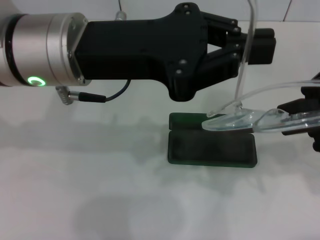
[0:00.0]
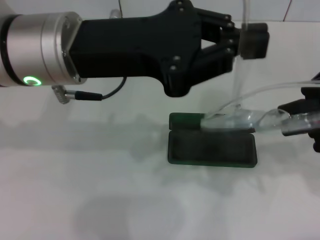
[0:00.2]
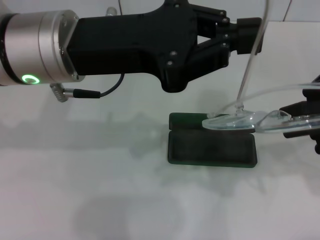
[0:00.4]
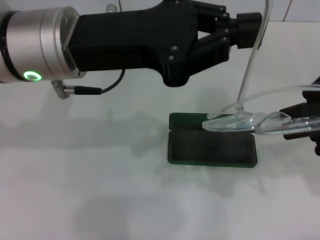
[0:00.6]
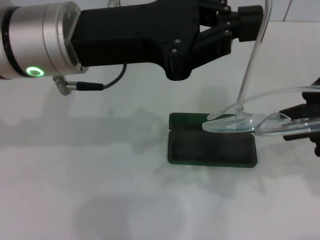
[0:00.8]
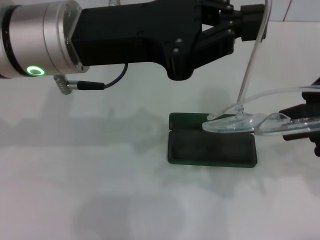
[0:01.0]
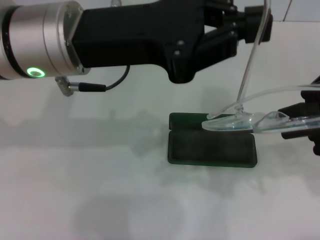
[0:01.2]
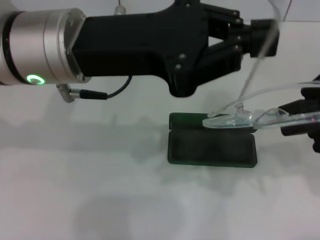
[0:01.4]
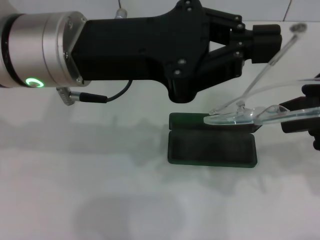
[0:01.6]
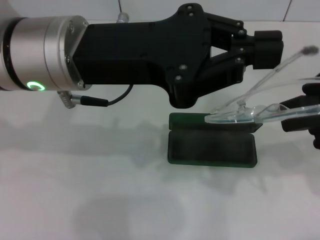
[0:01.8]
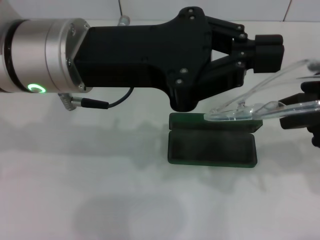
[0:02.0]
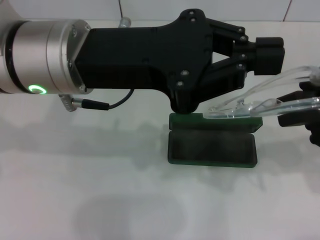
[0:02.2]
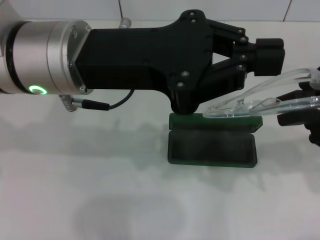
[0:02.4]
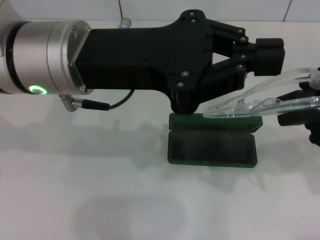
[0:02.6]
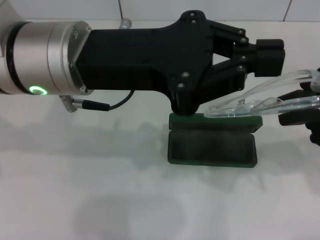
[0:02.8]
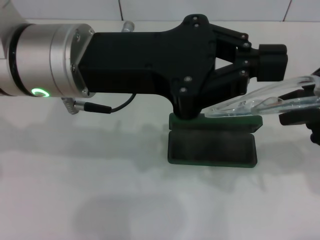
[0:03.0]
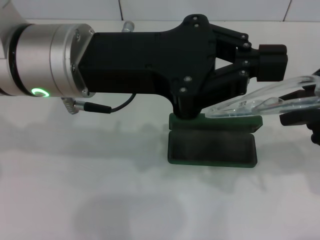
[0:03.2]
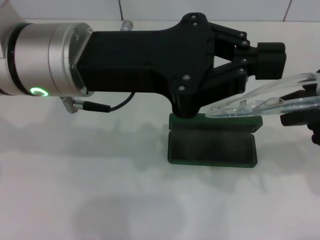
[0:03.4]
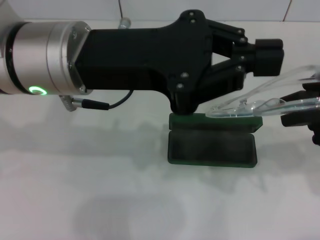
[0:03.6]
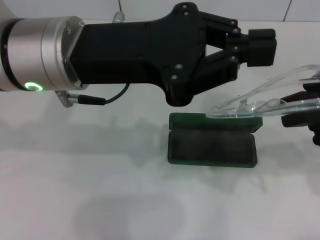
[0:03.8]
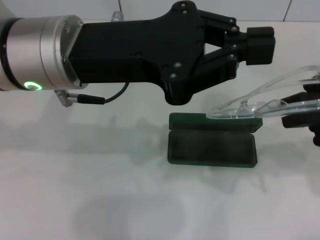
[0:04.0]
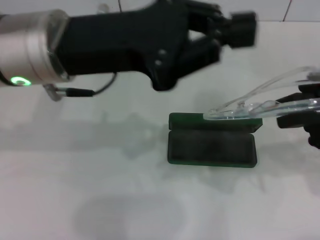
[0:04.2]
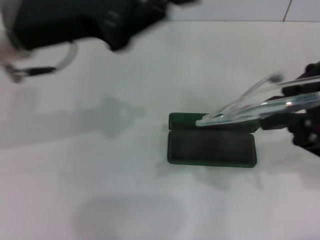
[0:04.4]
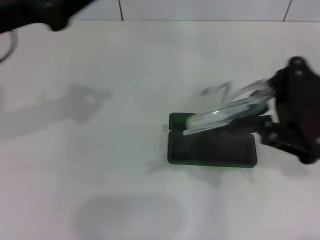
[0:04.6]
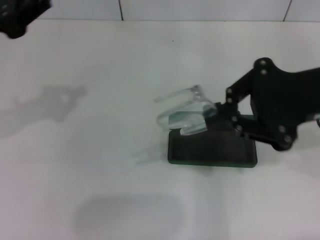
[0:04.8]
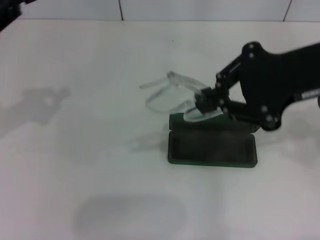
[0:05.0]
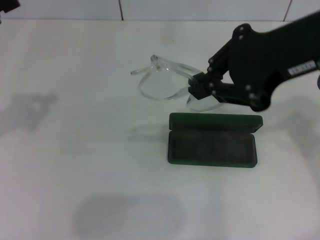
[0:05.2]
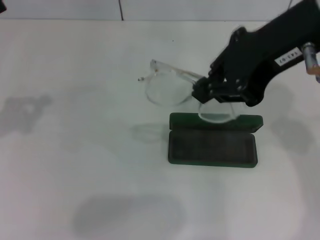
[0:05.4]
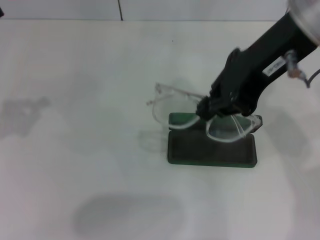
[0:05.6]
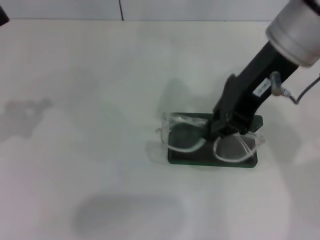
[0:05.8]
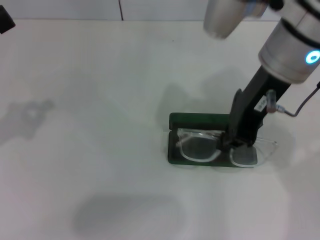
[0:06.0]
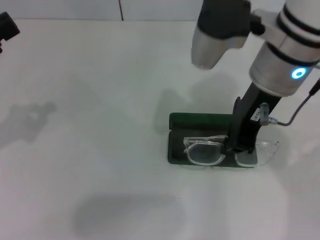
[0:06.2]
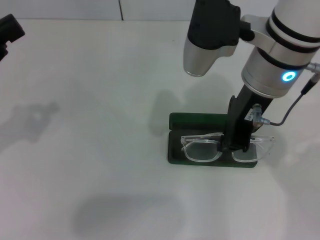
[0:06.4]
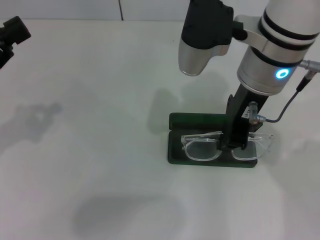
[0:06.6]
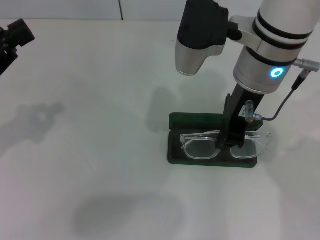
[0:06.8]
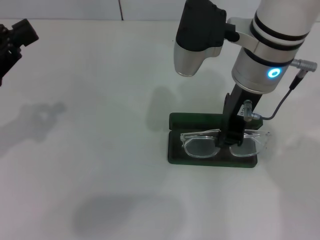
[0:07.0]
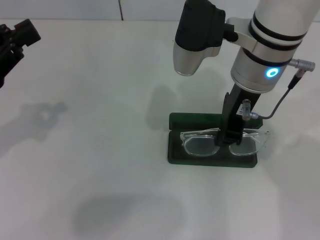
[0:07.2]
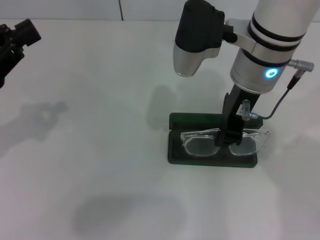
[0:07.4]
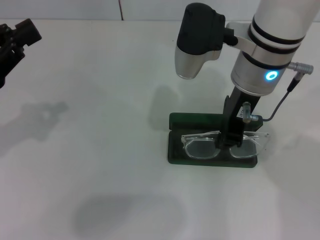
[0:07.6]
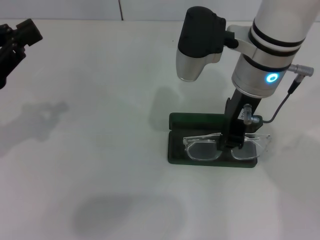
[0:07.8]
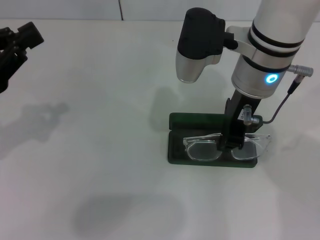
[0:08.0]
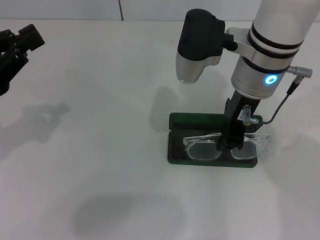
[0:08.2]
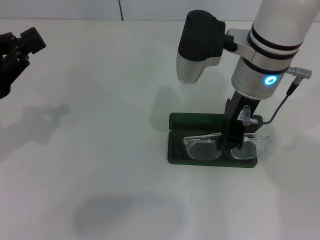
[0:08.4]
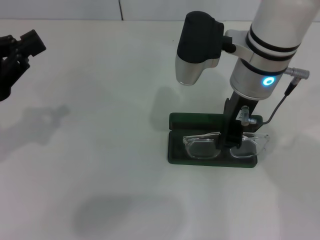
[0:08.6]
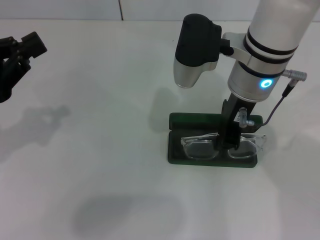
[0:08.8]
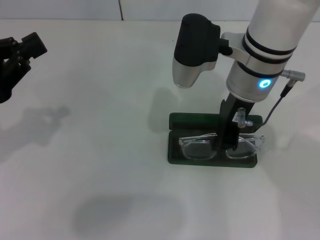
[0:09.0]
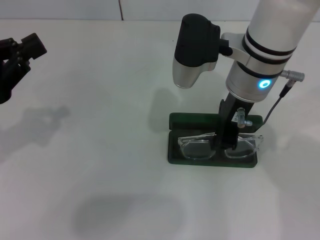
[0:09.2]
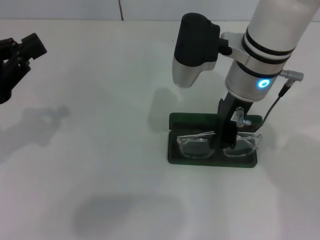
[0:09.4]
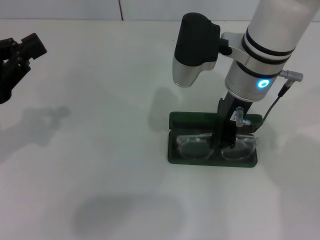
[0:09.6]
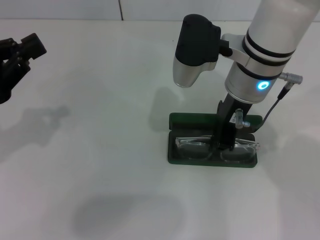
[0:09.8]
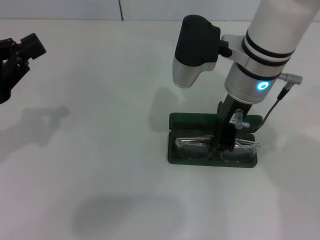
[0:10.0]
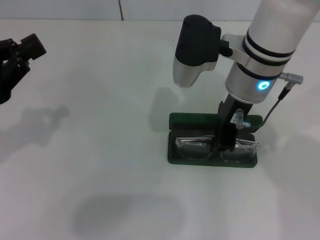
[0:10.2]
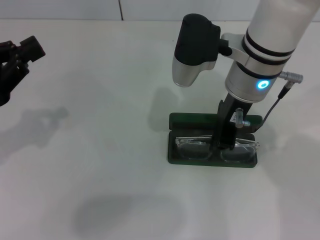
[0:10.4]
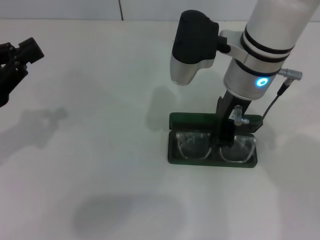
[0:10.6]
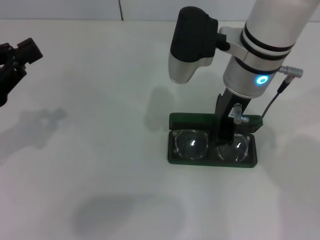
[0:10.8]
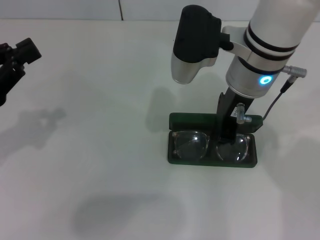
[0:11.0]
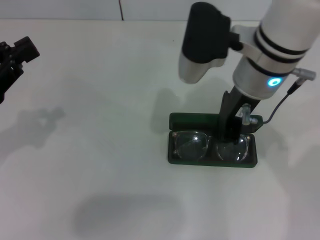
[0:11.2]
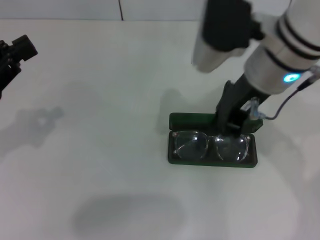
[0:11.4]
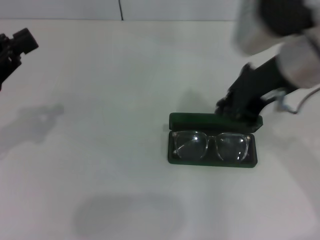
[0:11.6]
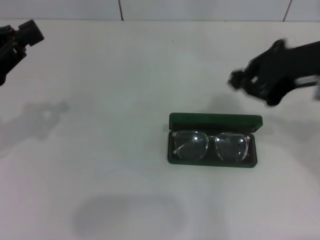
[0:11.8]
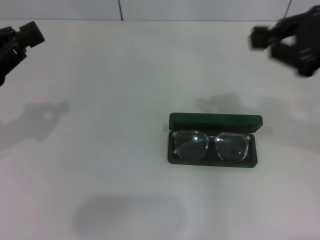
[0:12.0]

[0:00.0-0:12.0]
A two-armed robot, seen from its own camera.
Step, 0:00.0 to 0:03.6: Fold the frame with your left hand.
Step, 0:03.8 to 0:11.2: Put the glasses into the case with your right hand.
0:00.0 to 0:01.6: Both grippers stay put.
0:03.0 to 0:04.4: The left gripper moves to the left, about 5 cm.
0:04.4 to 0:06.0: The right gripper moves to the left, forward and upward, approximately 15 cm. The left gripper heads to the left and downward, covering about 15 cm.
0:06.0 to 0:07.6: The right gripper changes place by roughly 5 cm.
0:07.6 to 0:09.0: The grippers move only a little.
0:09.0 to 0:10.4: Both grippers stay put.
0:10.4 to 0:12.0: The right gripper goes roughly 20 cm to the right and backward.

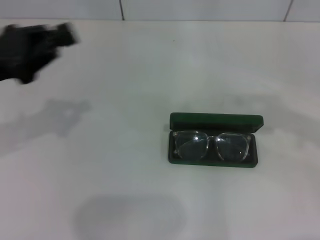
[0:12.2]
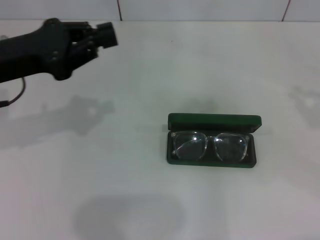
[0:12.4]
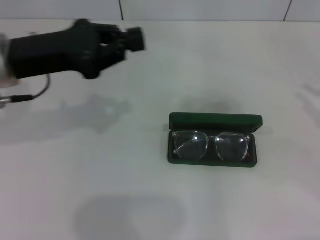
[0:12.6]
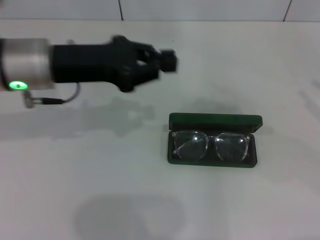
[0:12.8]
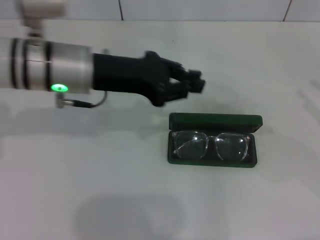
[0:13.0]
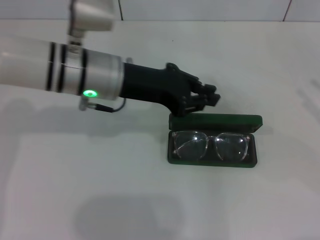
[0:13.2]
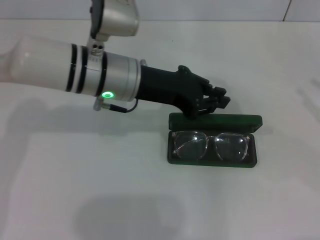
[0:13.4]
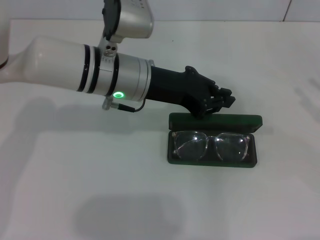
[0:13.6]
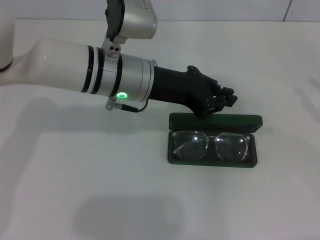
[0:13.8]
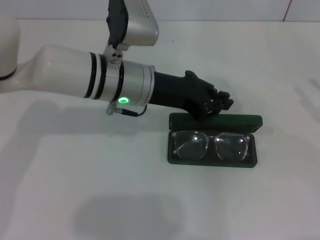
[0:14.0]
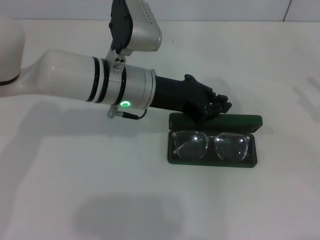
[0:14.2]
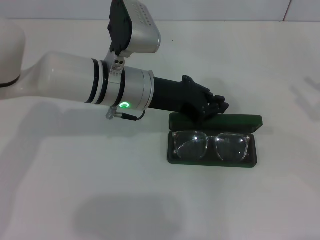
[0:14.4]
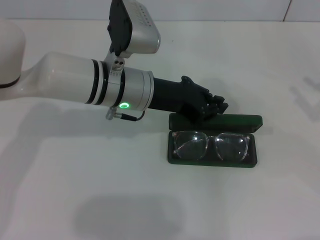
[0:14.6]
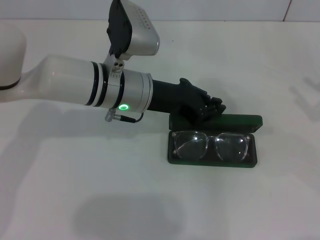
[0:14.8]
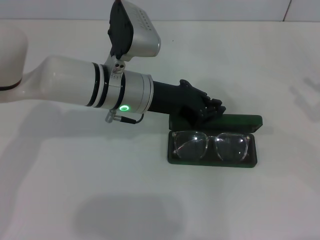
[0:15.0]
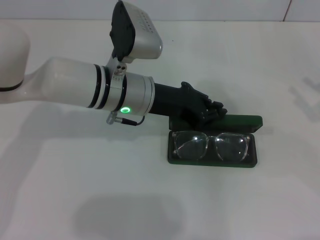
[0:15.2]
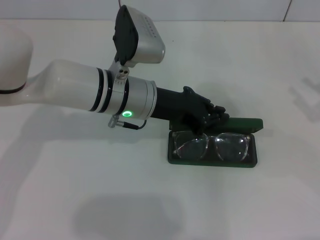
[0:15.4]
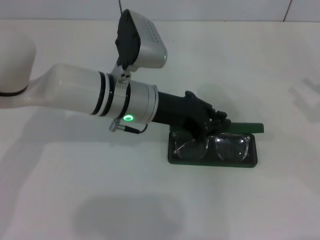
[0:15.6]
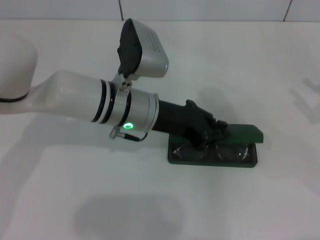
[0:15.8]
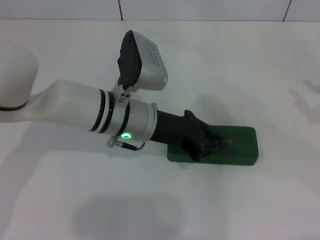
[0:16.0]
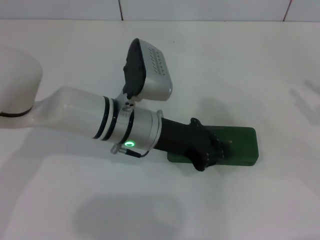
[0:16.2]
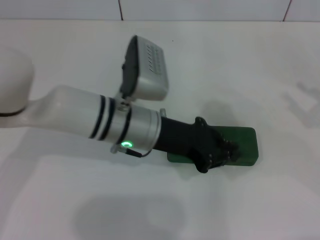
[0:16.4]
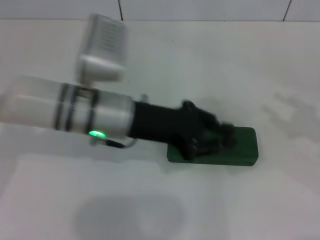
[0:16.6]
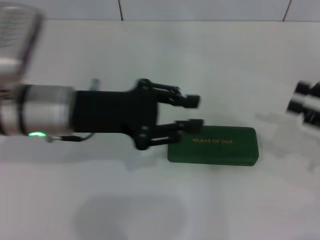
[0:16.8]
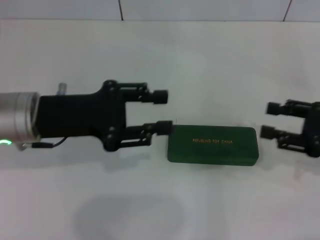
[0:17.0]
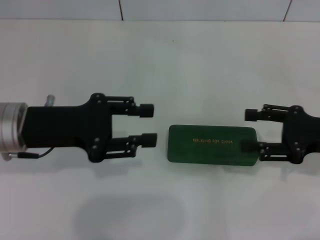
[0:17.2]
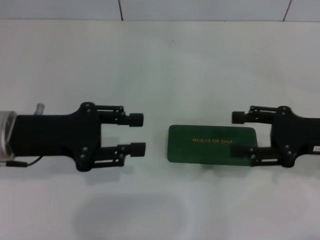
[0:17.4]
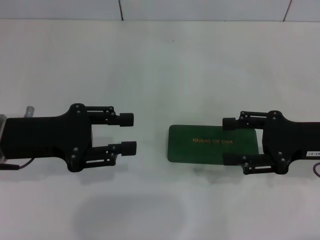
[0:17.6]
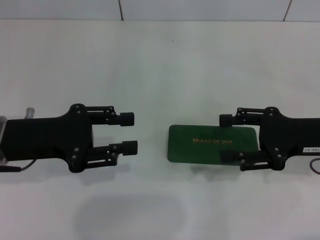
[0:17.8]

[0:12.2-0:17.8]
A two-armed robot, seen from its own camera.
Step, 0:12.2 to 0:16.4: Close the glasses case with your left hand.
0:12.2 to 0:13.6: The left gripper travels to the right by roughly 20 cm, while the right gripper is displaced downward and to the right by roughly 10 cm, and opens its fingers.
0:13.6 to 0:15.0: The grippers stay close to where they were, moving slightly.
0:15.0 to 0:16.4: The grippers move only a little.
0:16.4 to 0:17.8: Both grippers move to the left, some 15 cm. The left gripper opens its fingers.
